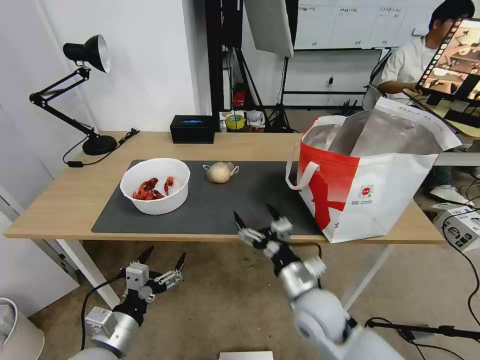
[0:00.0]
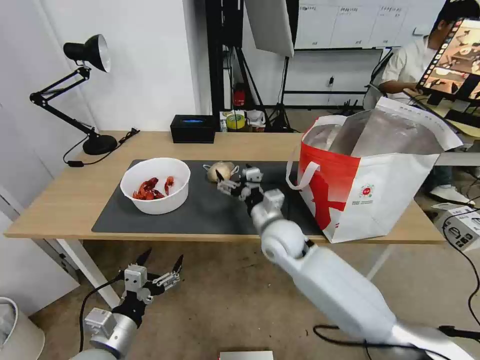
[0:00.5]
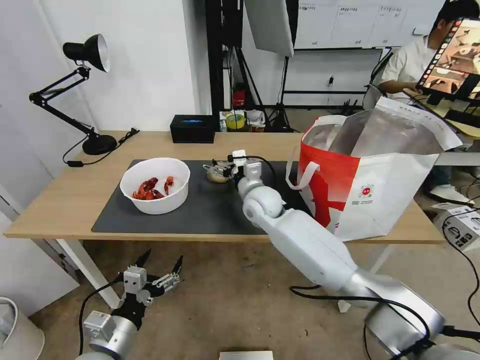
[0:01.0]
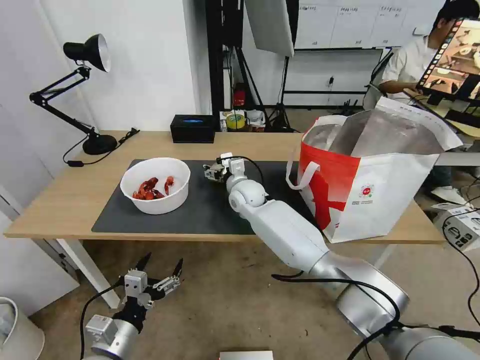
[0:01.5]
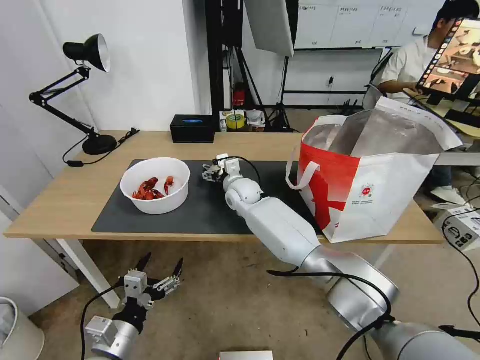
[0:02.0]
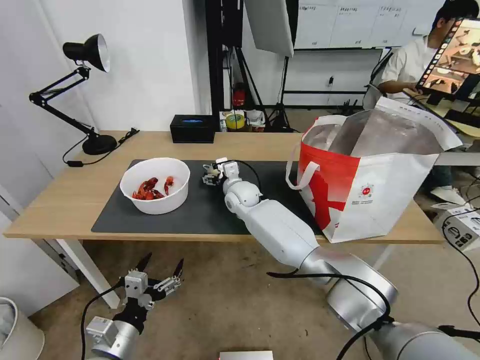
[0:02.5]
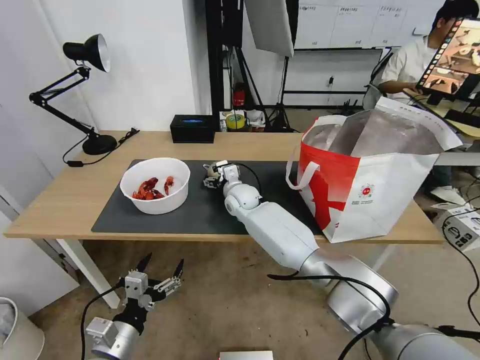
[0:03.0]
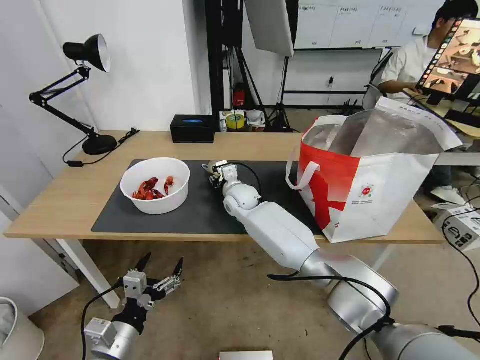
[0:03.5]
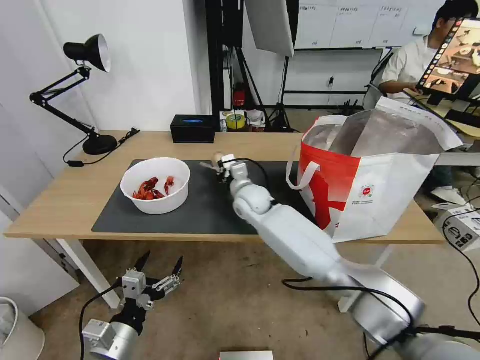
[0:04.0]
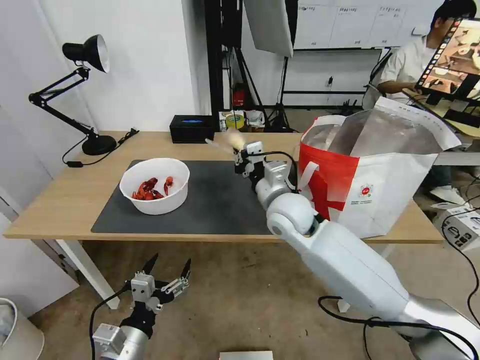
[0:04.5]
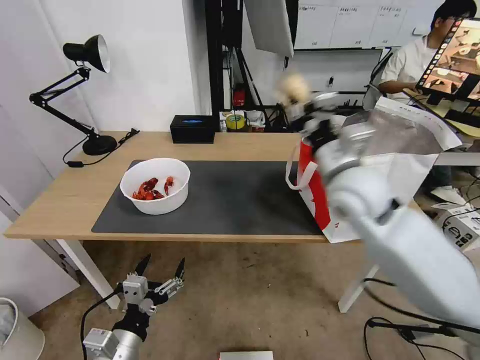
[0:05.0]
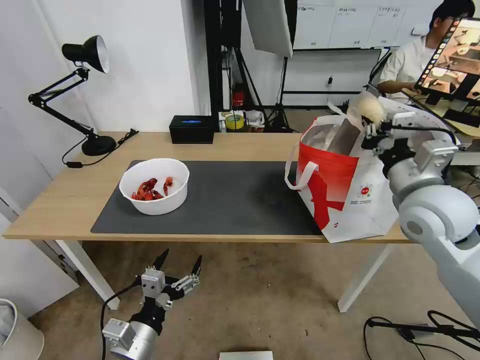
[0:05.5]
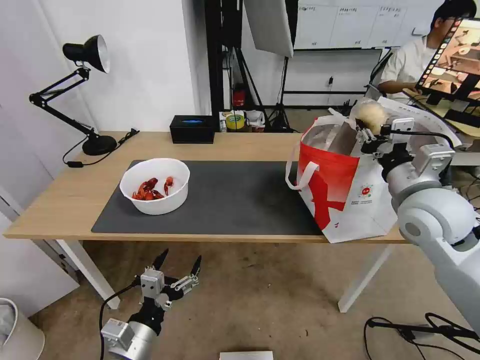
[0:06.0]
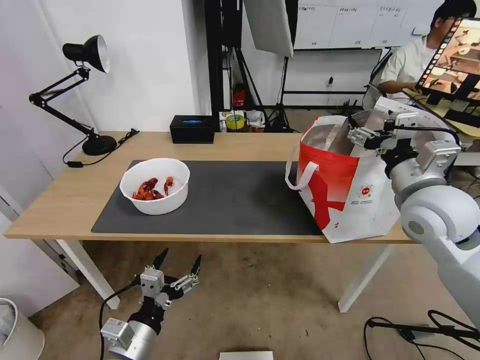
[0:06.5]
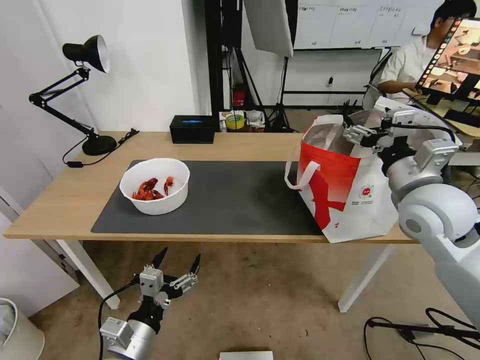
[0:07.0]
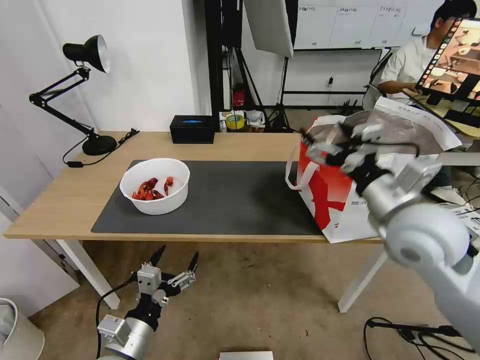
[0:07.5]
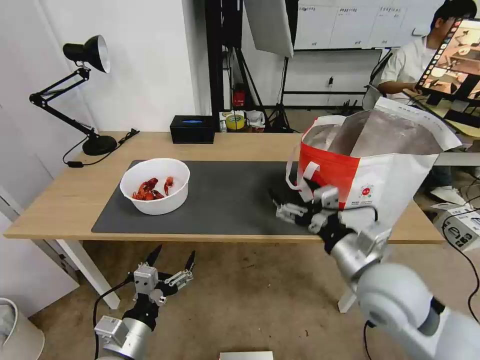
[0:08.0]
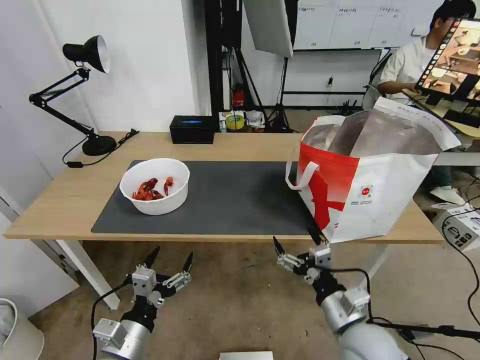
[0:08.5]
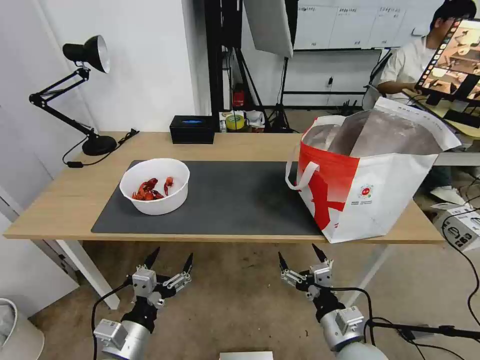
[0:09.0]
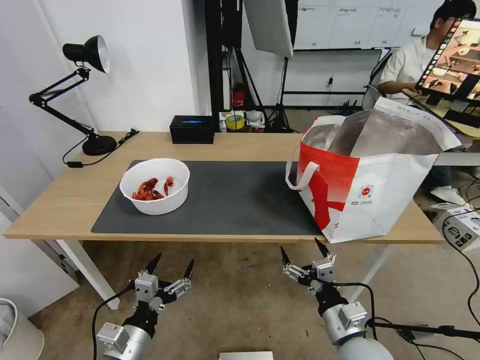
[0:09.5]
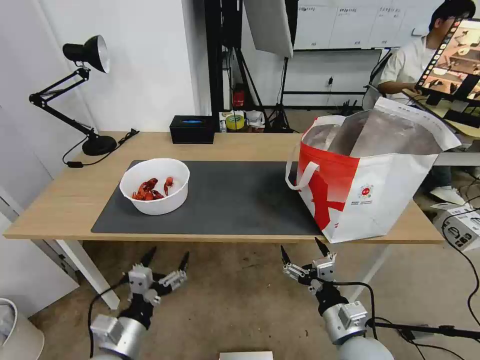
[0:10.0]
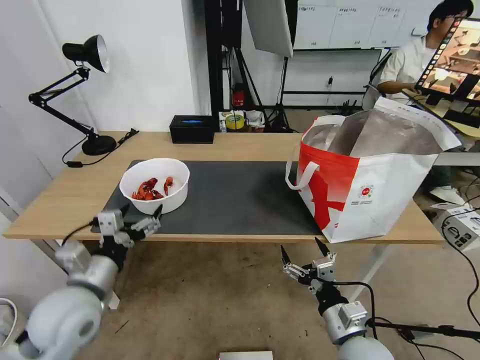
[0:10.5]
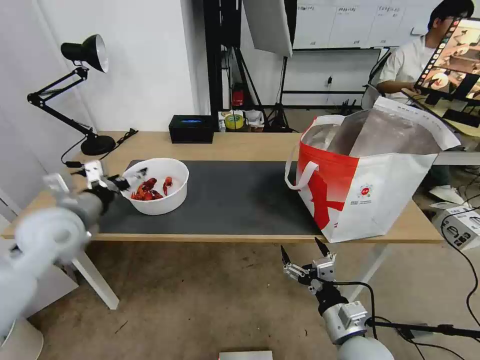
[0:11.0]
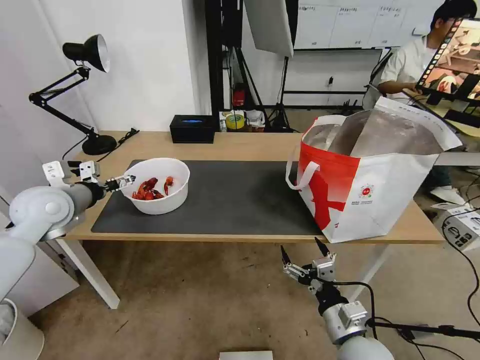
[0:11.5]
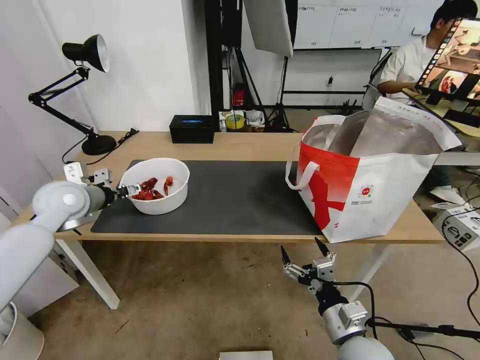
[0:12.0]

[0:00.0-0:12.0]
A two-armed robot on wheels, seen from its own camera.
Task of the whole recording: Pick up the trash from the table and place it into the takeout bag.
0:00.0 to 0:02.0: The right gripper heads forward and to the left, covering about 35 cm.
0:02.0 to 0:04.0: The right gripper changes place by approximately 5 cm, and closes its fingers.
0:04.0 to 0:06.0: The right gripper travels to the right, backward and upward by some 35 cm.
0:06.0 to 0:08.0: The right gripper moves backward, to the left and downward, about 15 cm, and opens its fingers.
0:08.0 to 0:10.0: The right gripper moves downward and backward, roughly 15 cm.
0:10.0 to 0:12.0: The left gripper travels forward, upward and to the left by some 35 cm.

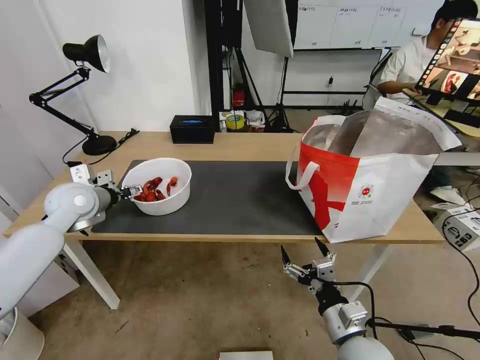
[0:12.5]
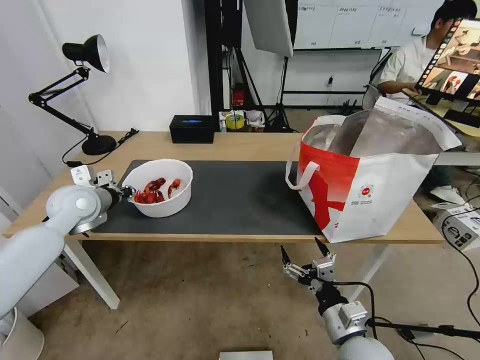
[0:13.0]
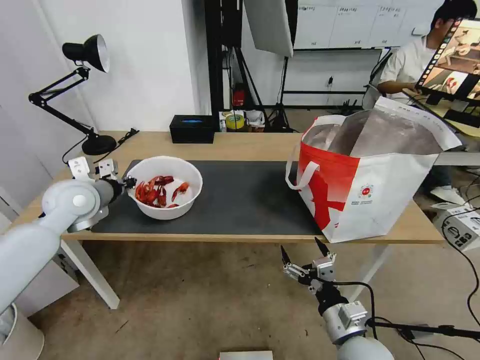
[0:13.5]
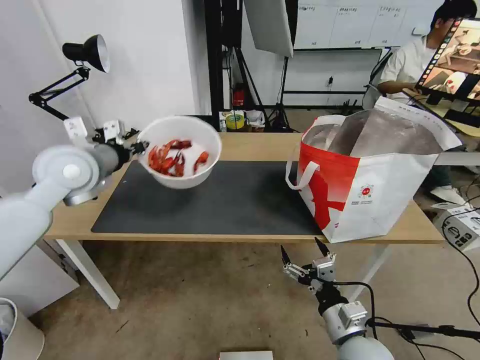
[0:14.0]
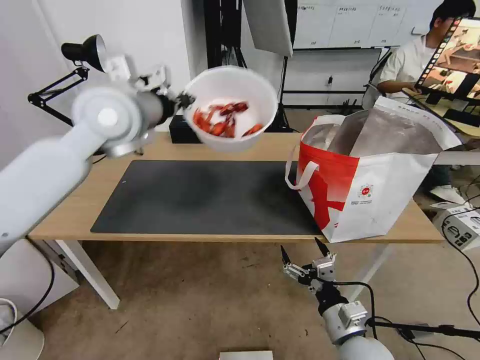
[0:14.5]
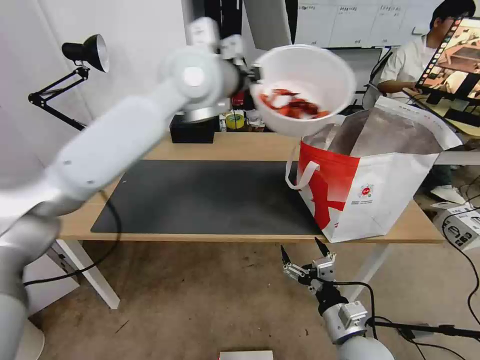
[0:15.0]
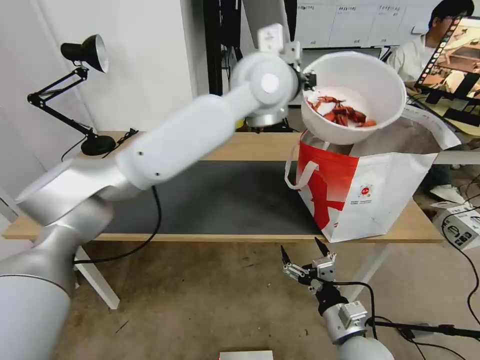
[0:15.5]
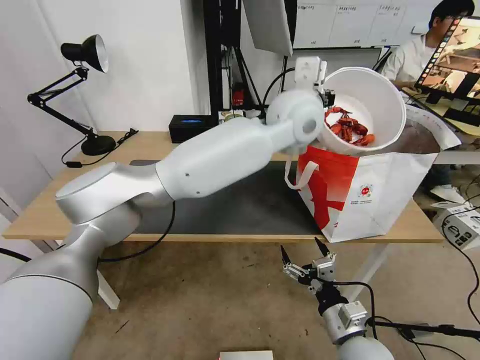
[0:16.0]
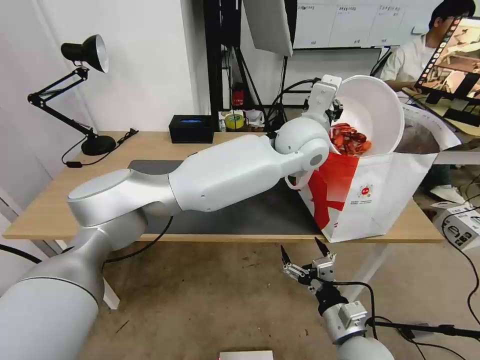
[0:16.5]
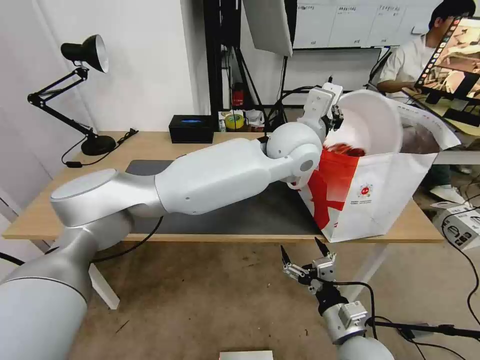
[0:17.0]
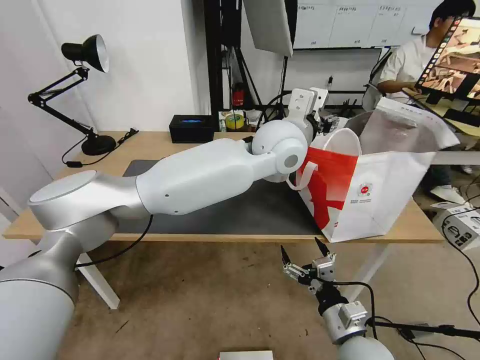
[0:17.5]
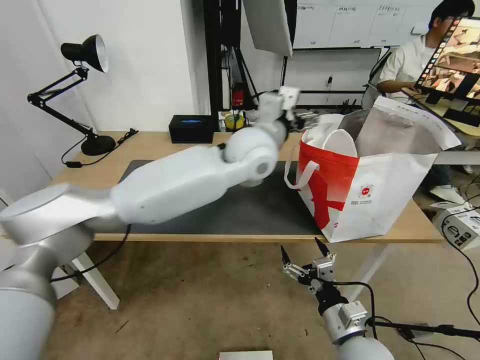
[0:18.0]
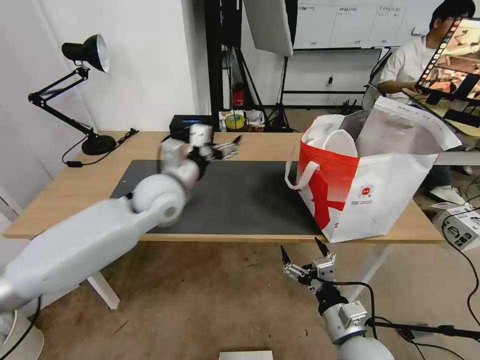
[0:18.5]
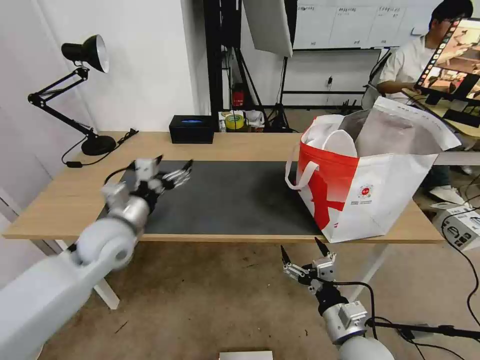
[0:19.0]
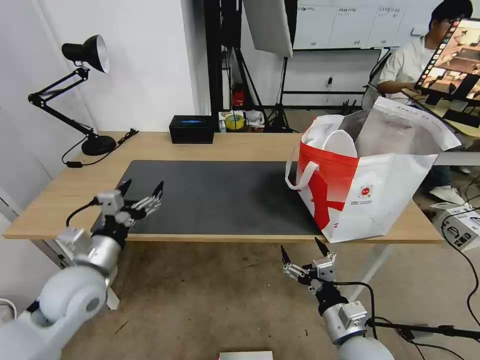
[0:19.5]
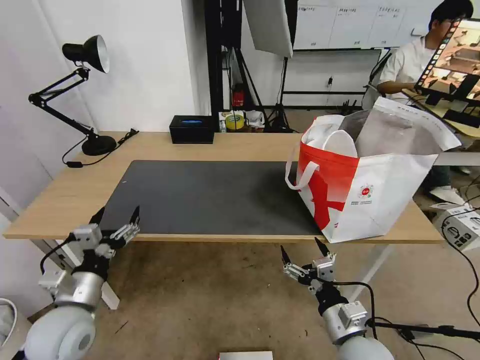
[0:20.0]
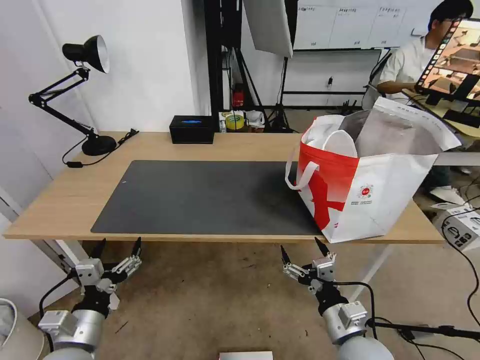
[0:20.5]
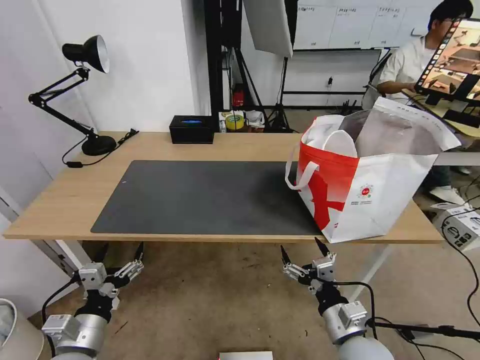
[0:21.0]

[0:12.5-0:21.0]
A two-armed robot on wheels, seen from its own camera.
Task of the whole recording: Pick up the trash from the table and place it into the takeout bag.
0:12.5 to 0:14.5: The left gripper travels upward and to the right by roughly 25 cm, and closes up.
0:14.5 to 0:16.5: The left gripper travels to the right by approximately 30 cm.
0:16.5 to 0:19.0: The left gripper heads to the left and downward, covering about 40 cm, and opens its fingers.
0:19.0 to 0:21.0: The left gripper shifts approximately 25 cm backward and downward.

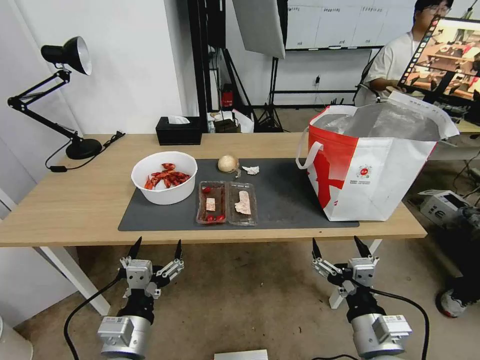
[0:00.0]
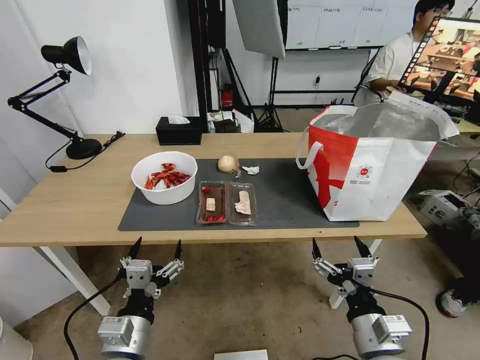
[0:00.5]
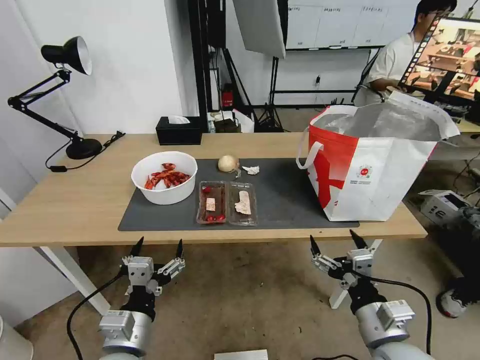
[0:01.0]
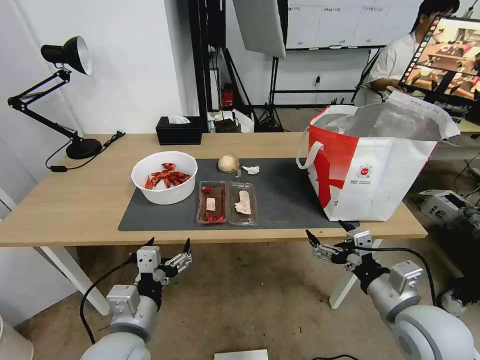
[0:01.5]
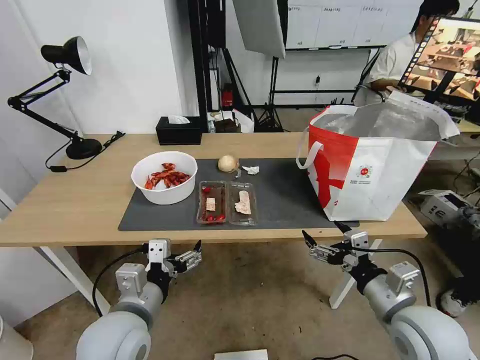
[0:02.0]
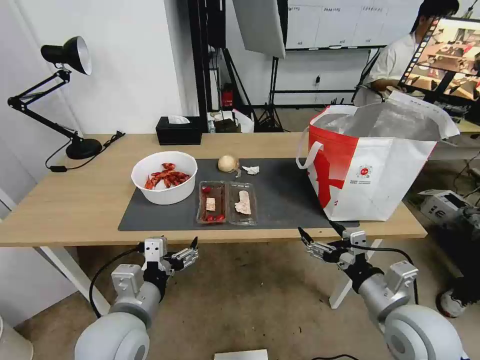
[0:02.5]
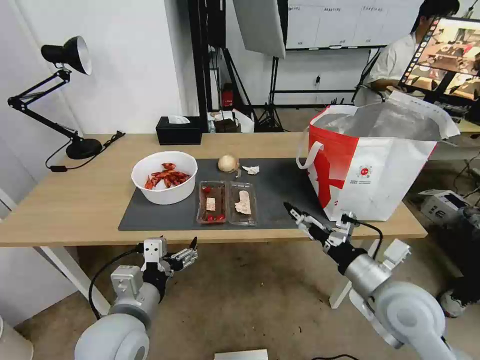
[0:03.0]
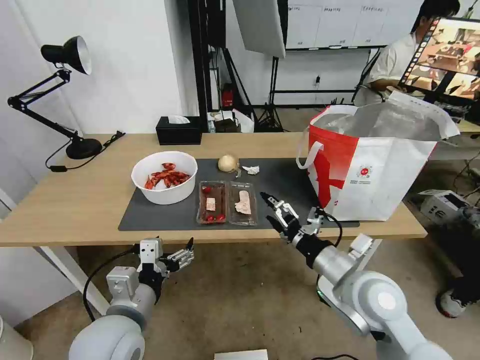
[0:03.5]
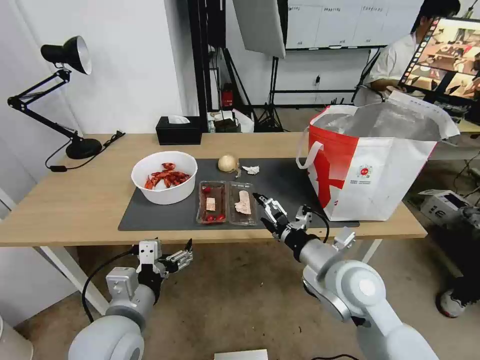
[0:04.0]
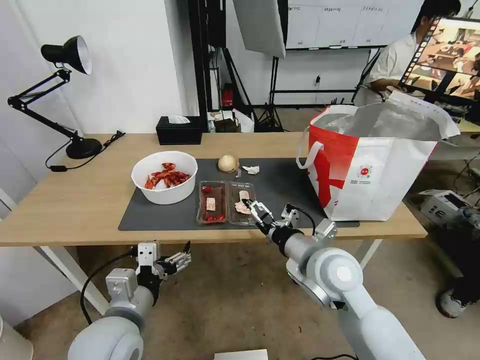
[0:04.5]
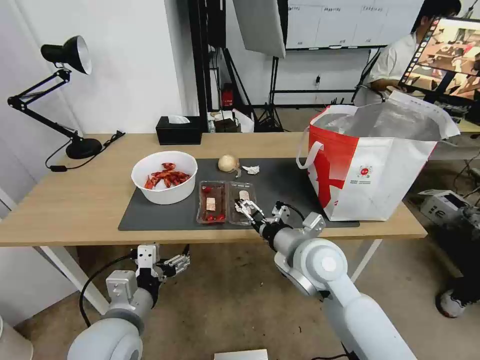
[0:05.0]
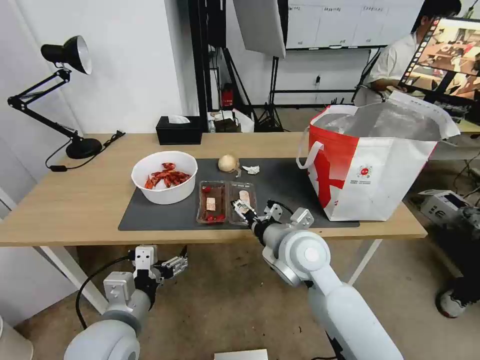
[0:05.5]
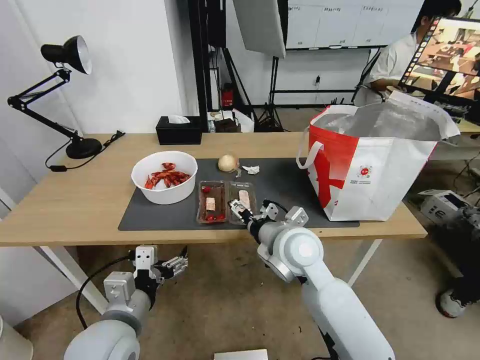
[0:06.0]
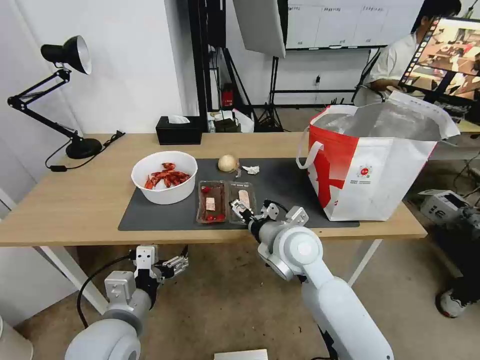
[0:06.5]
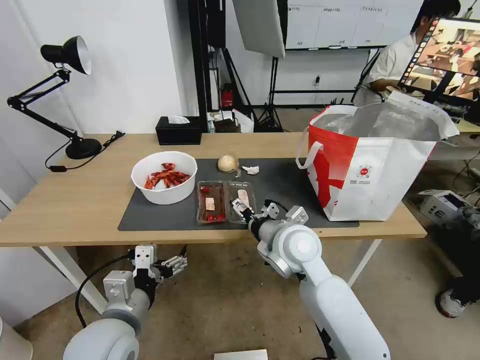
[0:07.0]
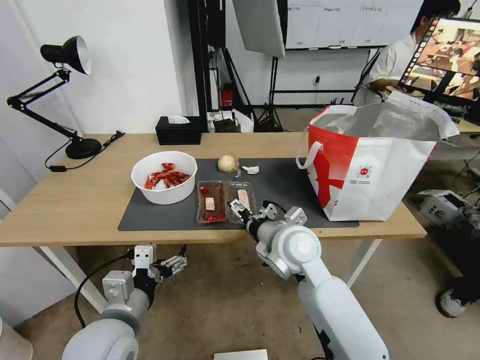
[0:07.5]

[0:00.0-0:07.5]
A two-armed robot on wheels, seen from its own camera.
Task of the whole recording: Pick up the trash from the table and place it into the takeout bag.
0:02.0 to 0:04.0: The right gripper moves to the left and forward, some 10 cm.
0:04.0 to 0:05.5: The right gripper heads to the left and forward, covering some 10 cm.
0:05.5 to 0:07.5: The grippers move only a little.
